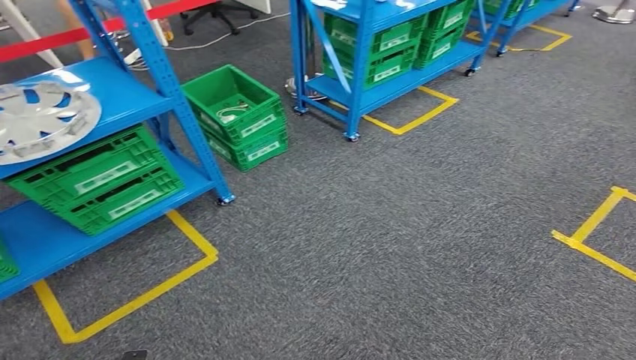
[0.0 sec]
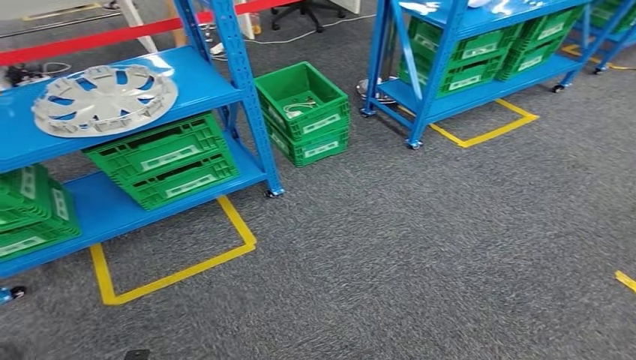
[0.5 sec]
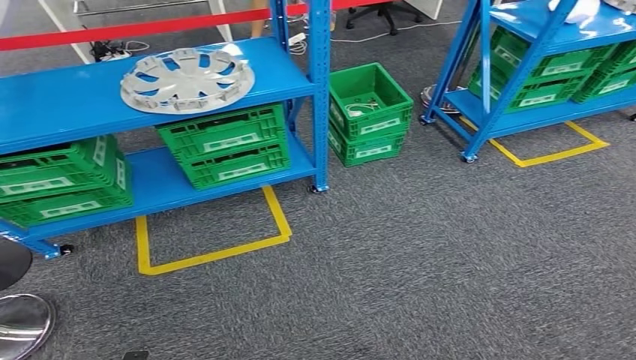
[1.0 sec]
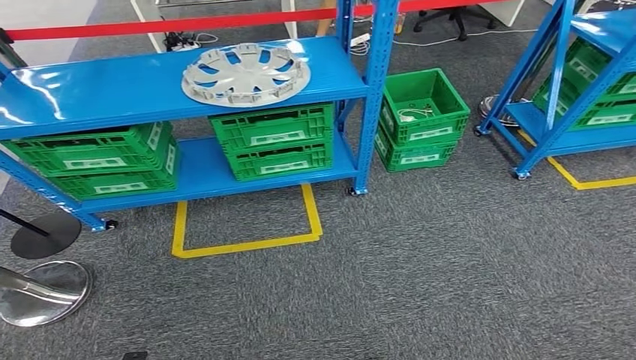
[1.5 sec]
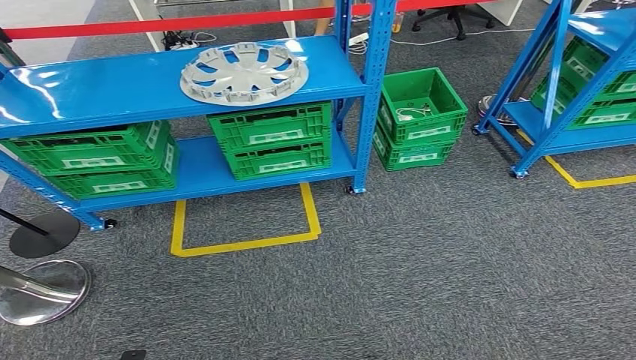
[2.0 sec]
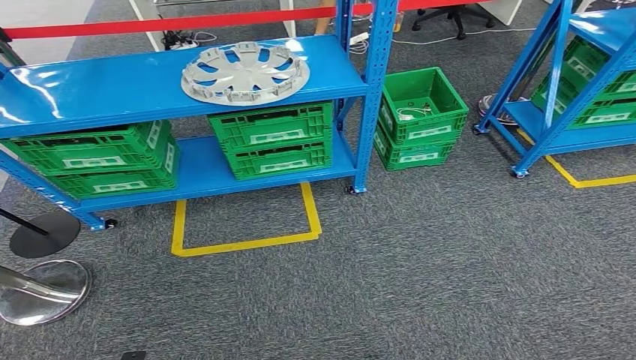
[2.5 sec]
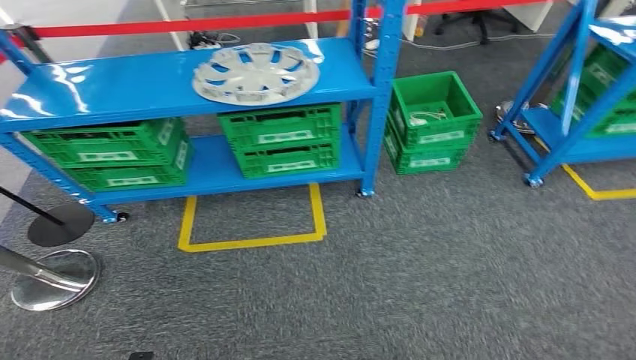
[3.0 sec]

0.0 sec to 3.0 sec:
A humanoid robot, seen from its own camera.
Step, 0.0 sec to 3.0 sec: Return to the initial position at the workbench.

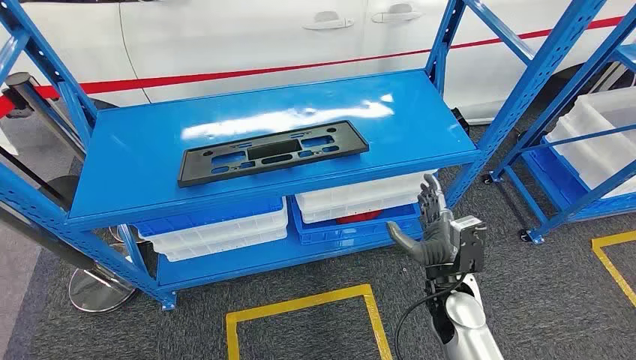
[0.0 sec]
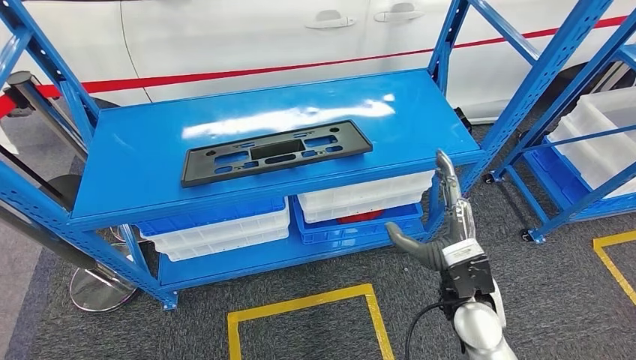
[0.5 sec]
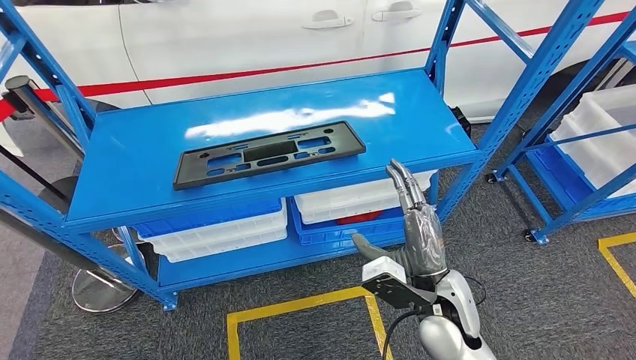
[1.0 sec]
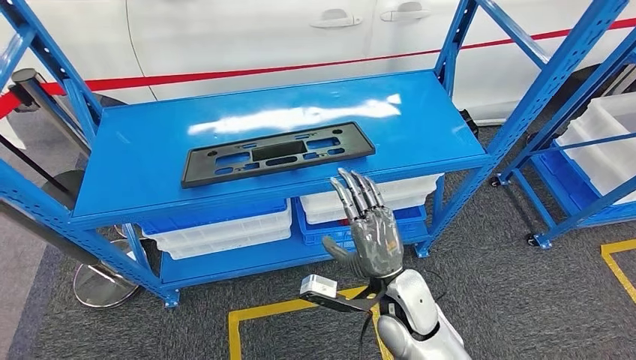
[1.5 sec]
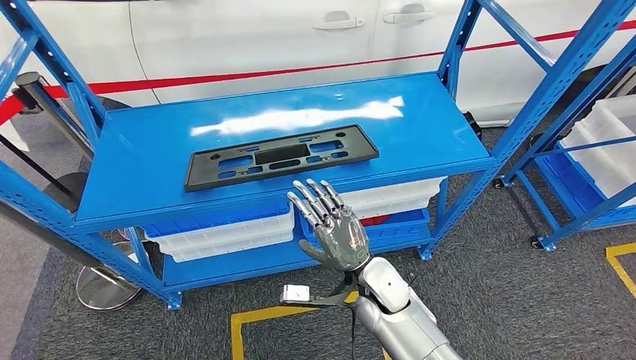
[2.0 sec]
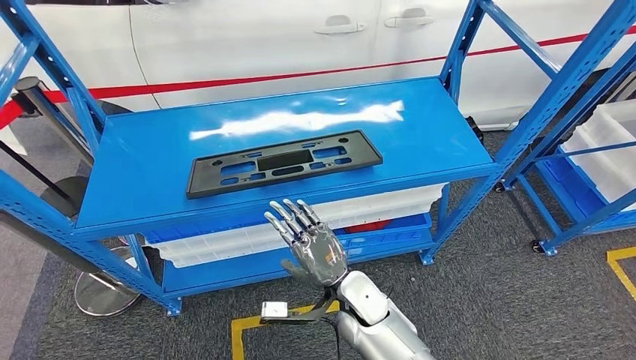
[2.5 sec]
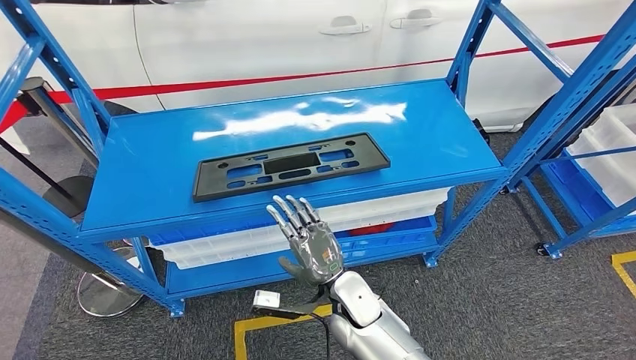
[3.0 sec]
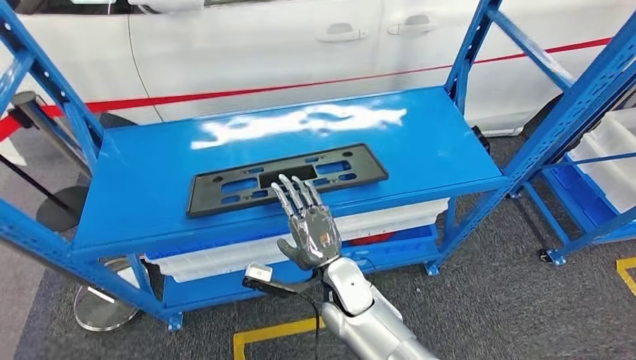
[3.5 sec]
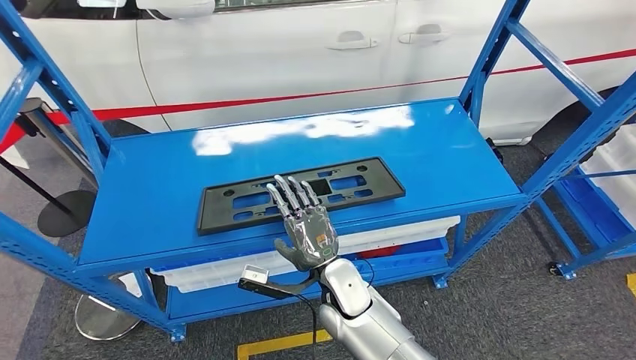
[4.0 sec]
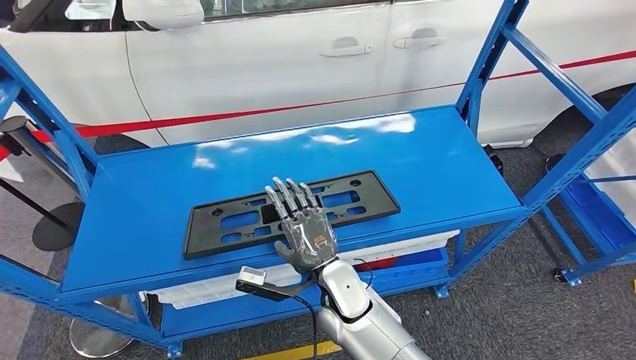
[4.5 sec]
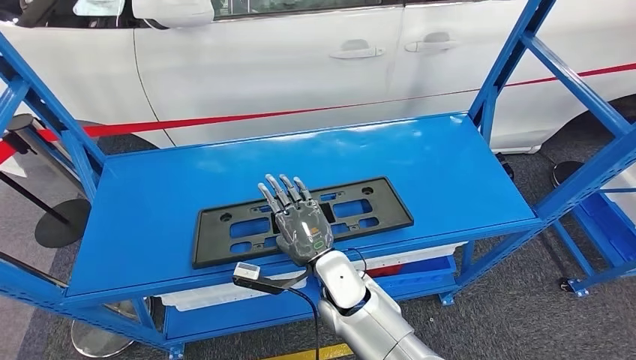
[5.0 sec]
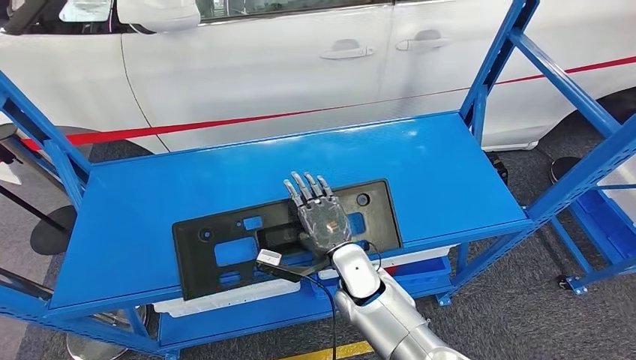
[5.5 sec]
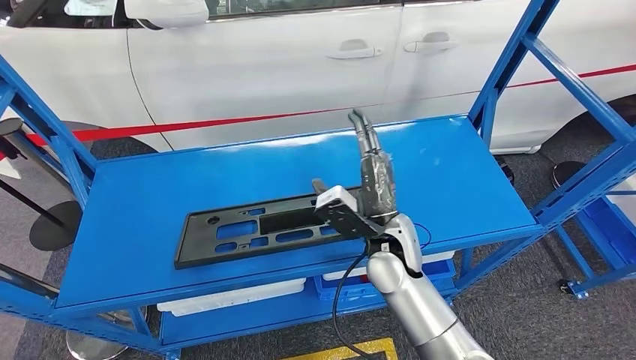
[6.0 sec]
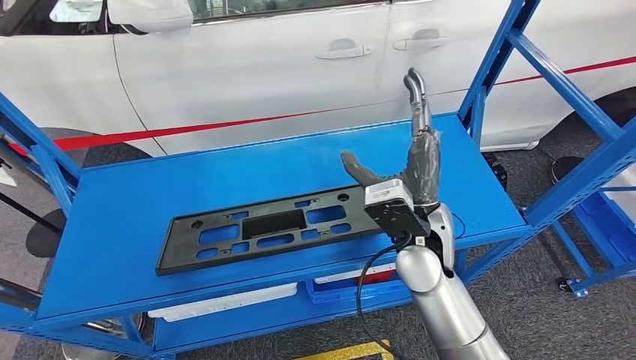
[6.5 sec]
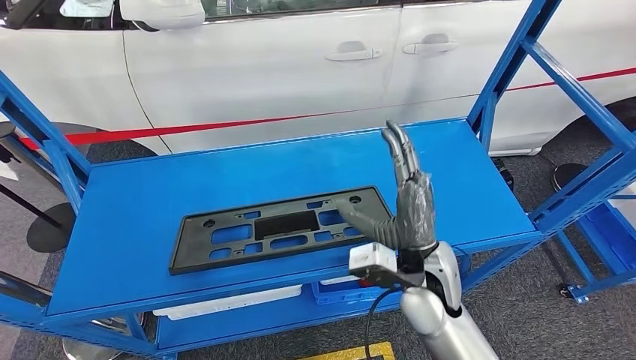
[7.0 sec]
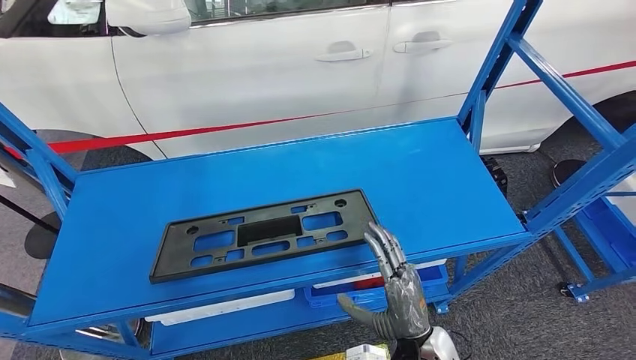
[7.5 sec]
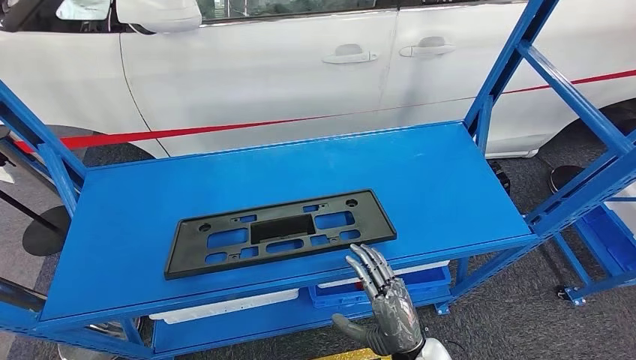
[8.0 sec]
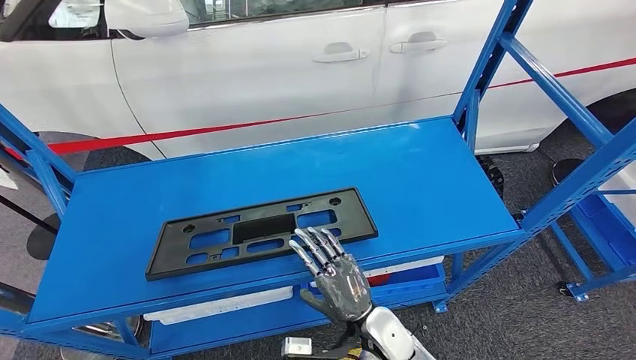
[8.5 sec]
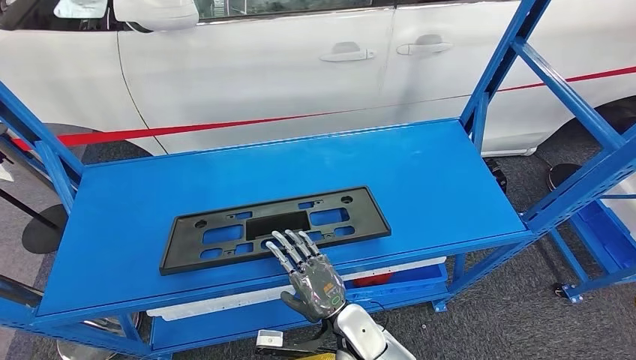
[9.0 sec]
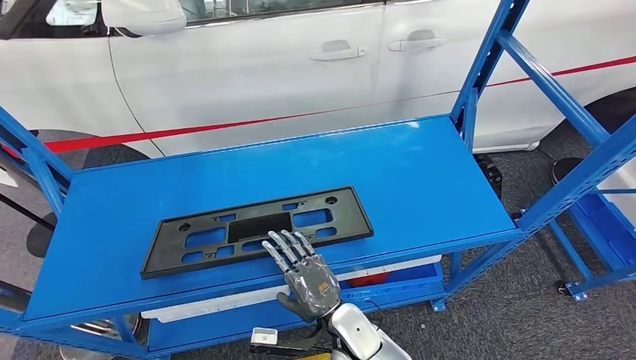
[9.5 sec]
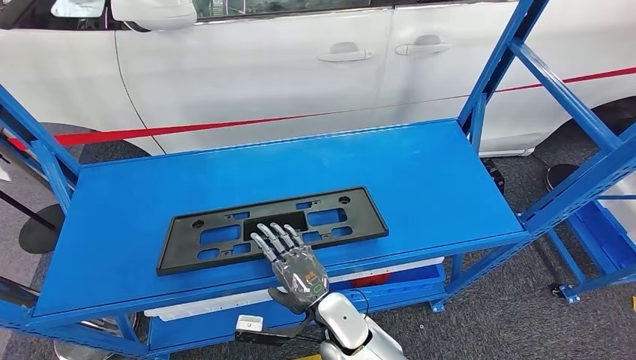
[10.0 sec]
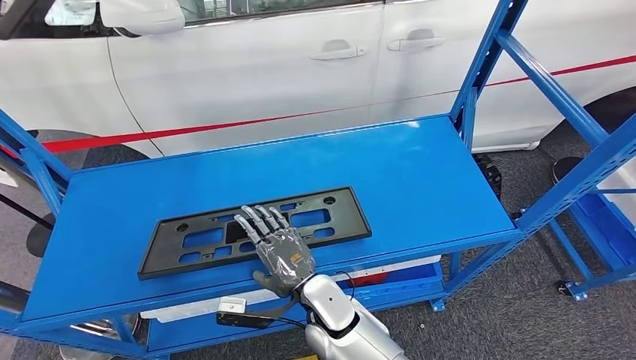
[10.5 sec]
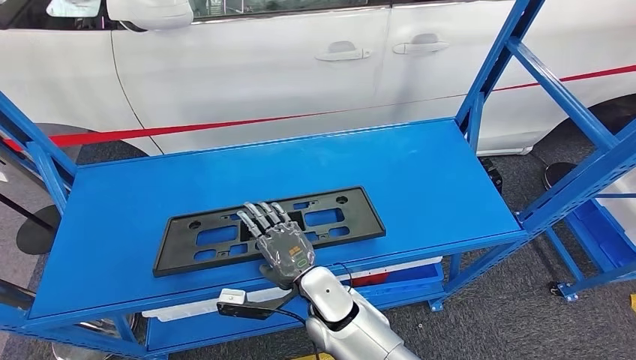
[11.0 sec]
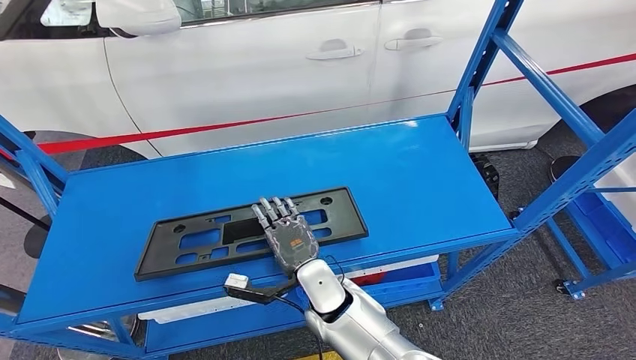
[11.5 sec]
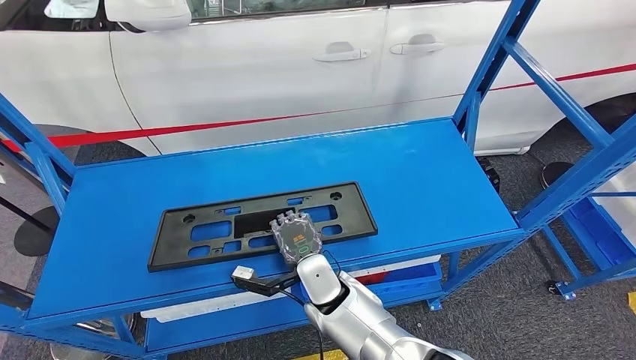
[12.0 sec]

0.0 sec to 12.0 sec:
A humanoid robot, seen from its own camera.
10.0 sec to 12.0 sec: The right hand shifts about 5 cm forward.

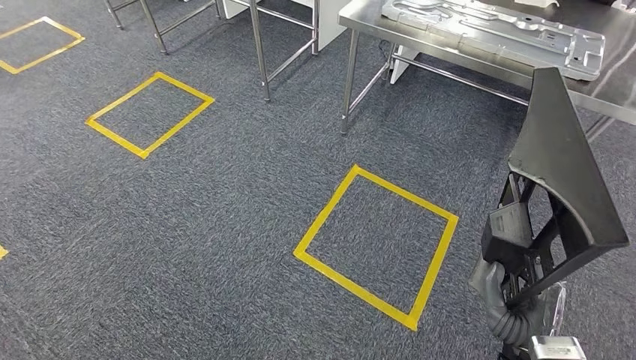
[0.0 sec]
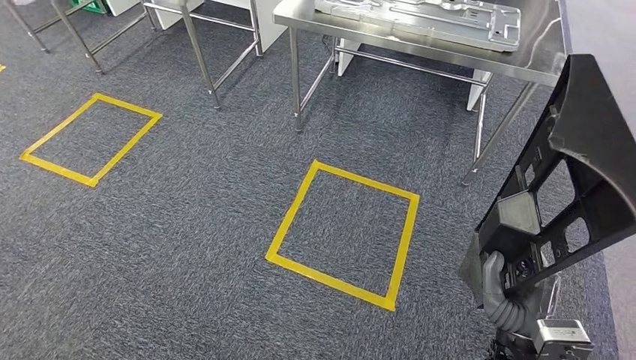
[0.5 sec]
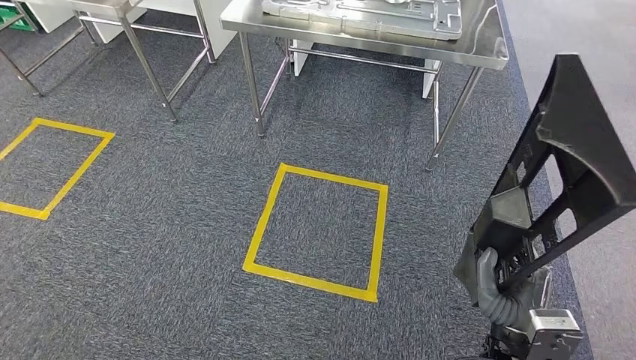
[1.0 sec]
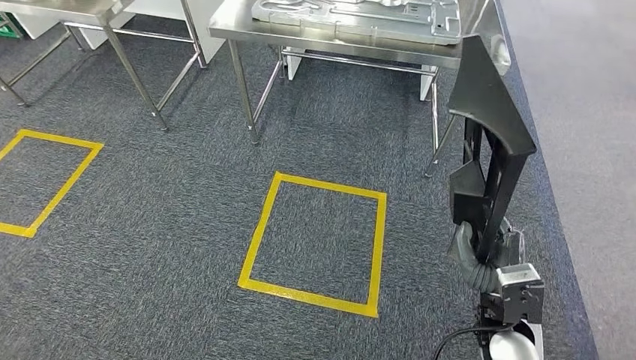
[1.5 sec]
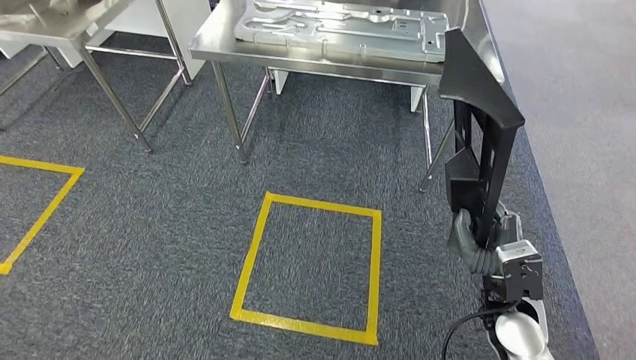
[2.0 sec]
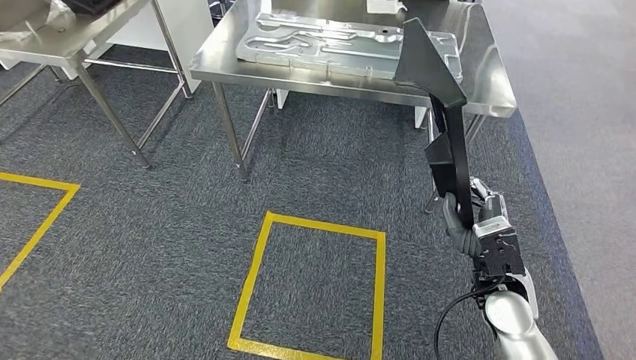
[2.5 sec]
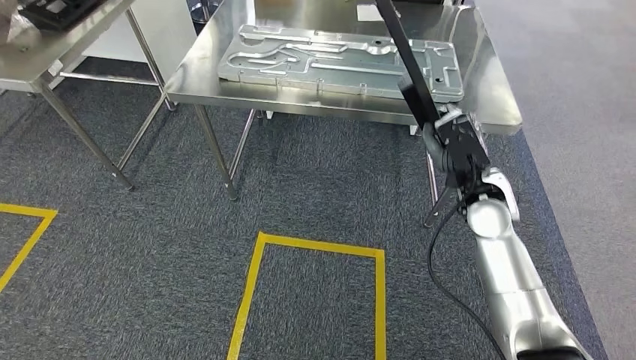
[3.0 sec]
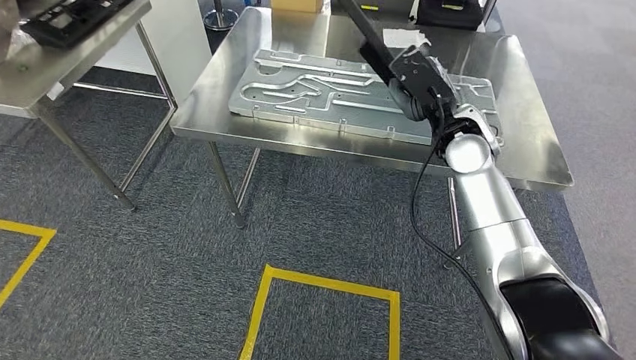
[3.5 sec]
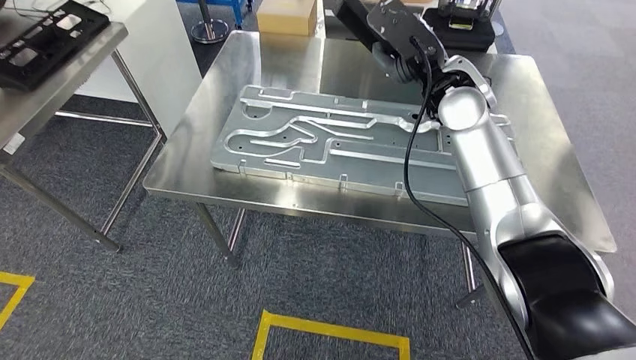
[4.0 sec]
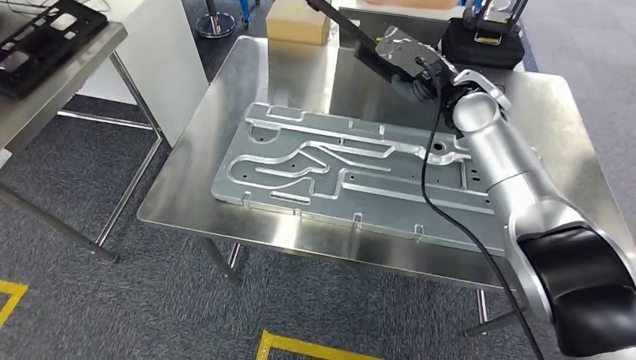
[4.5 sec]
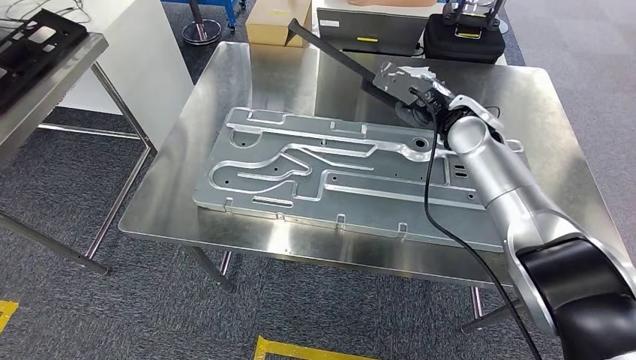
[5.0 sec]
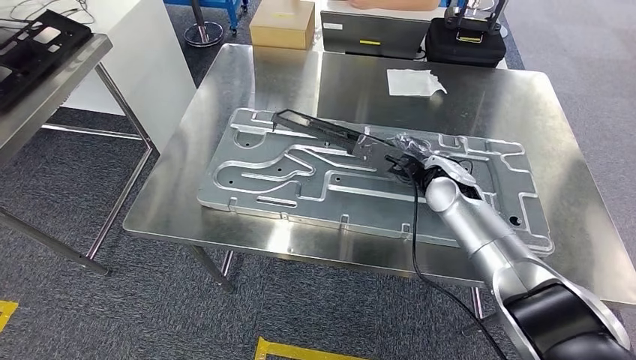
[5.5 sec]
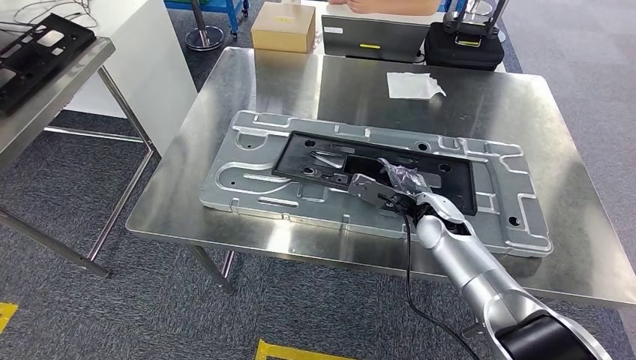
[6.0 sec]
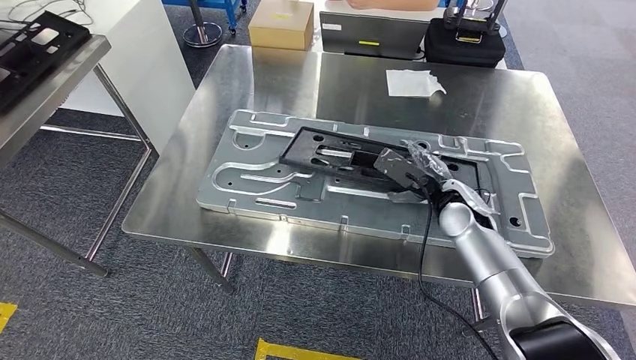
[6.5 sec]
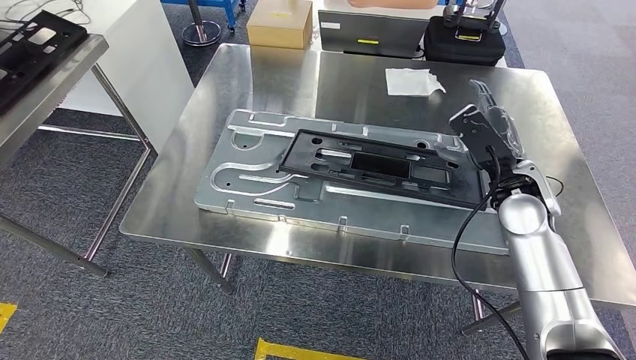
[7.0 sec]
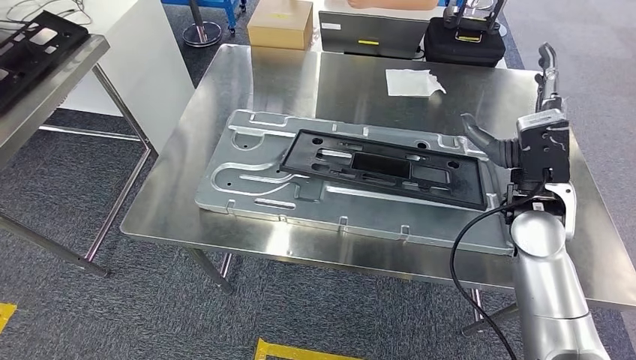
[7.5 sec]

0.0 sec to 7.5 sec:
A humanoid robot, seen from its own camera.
Step, 0.0 sec to 3.5 sec: Move the large parts to the workbench.
